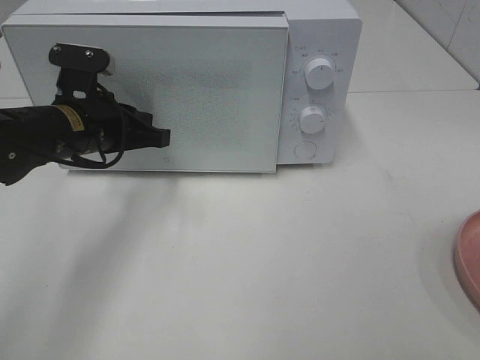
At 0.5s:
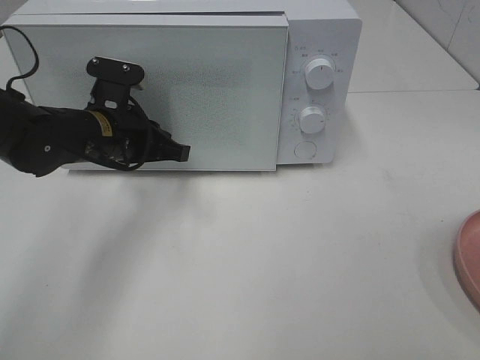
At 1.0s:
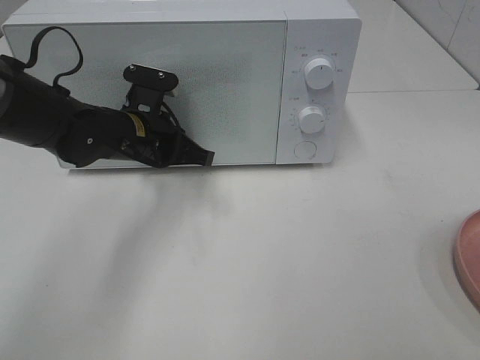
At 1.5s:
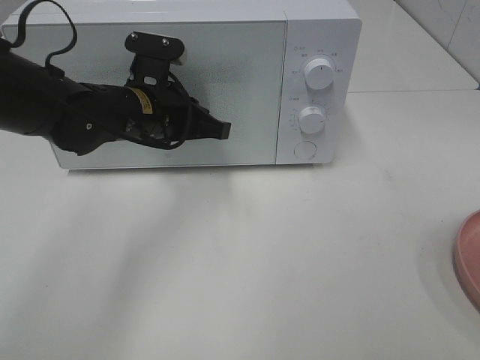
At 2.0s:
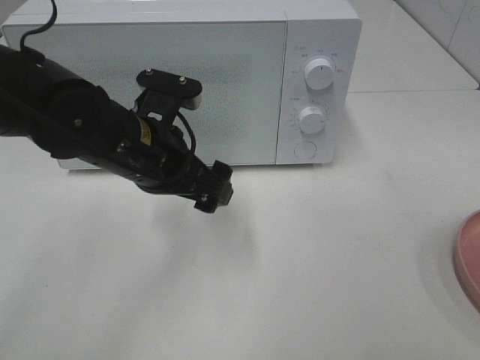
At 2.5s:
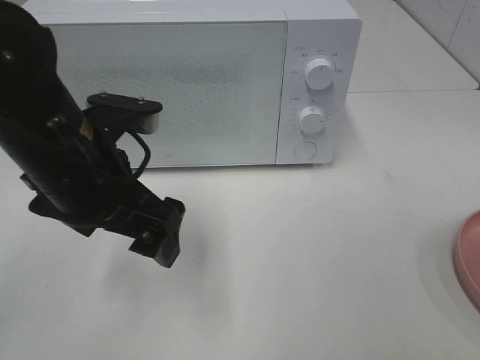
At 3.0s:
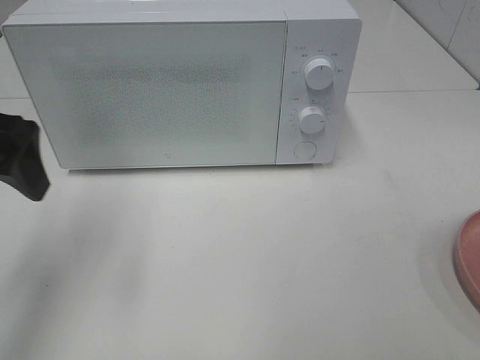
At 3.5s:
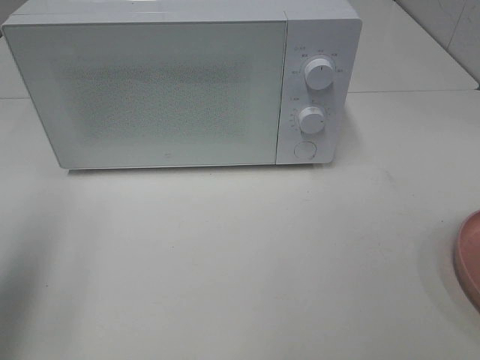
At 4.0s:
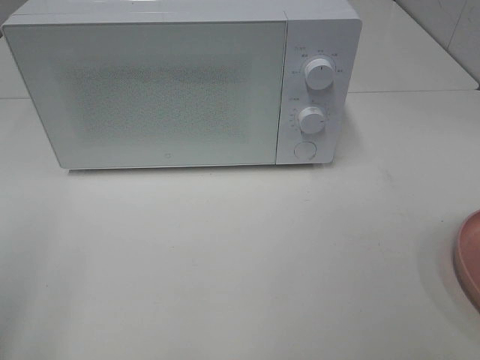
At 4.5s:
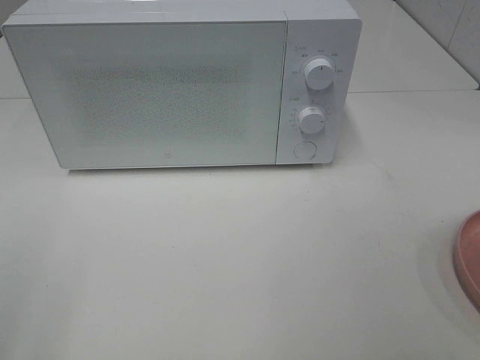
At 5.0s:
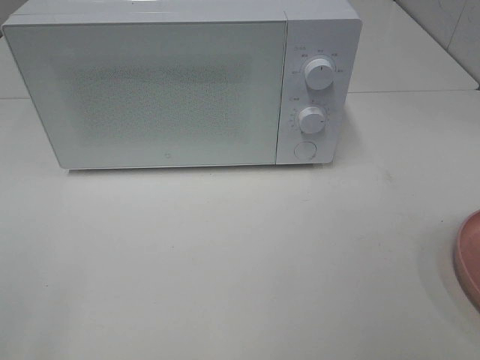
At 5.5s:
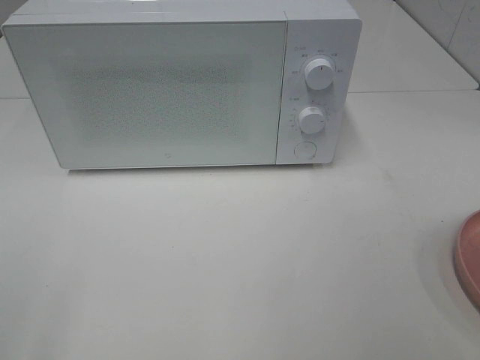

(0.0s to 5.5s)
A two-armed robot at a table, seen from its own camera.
Task of the whole recording: Heat the burger.
0.0s - 2.0s: The left gripper goes some 10 cm to the right and backward, and opens its fingers.
2.0s - 3.5s: The left gripper travels to the left, upward and backward by roughly 30 cm.
3.5s - 5.5s: The left gripper is displaced backward by approximately 15 cm.
